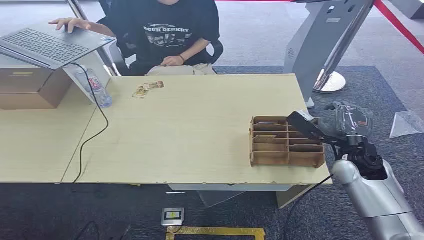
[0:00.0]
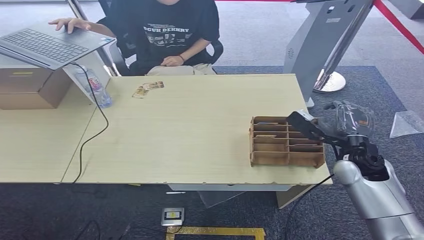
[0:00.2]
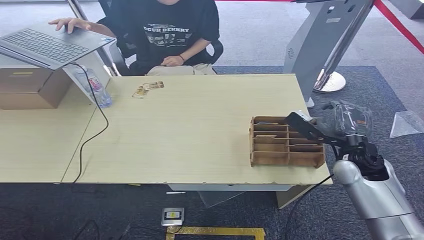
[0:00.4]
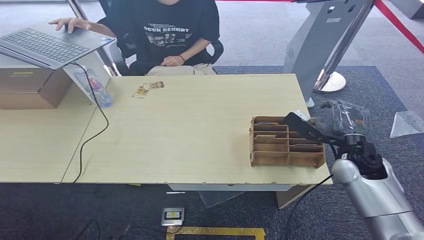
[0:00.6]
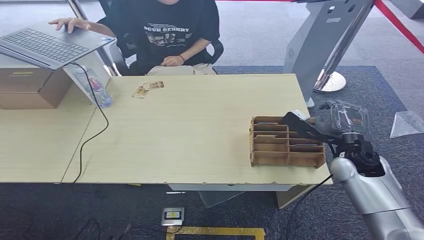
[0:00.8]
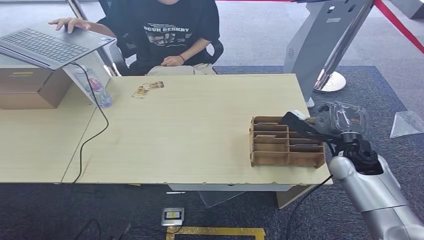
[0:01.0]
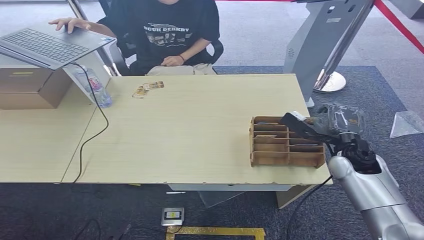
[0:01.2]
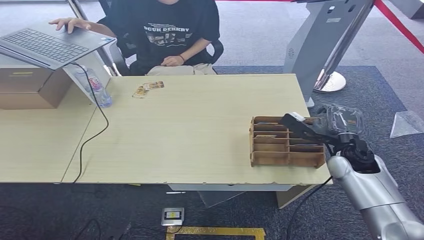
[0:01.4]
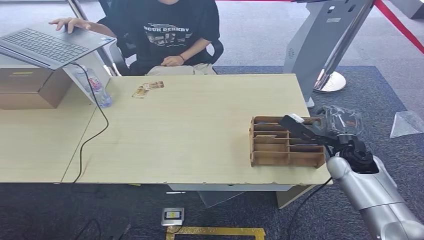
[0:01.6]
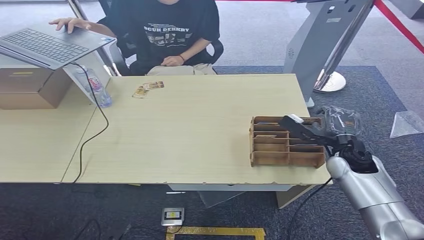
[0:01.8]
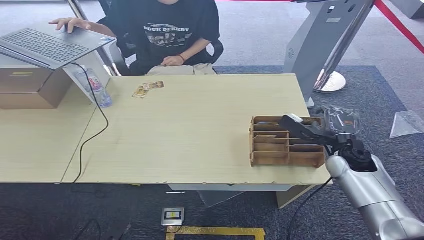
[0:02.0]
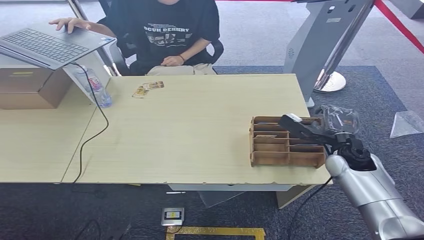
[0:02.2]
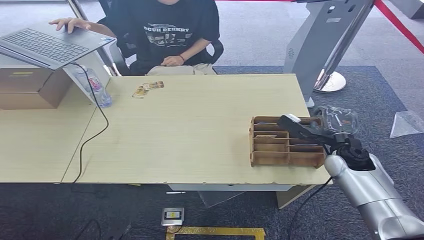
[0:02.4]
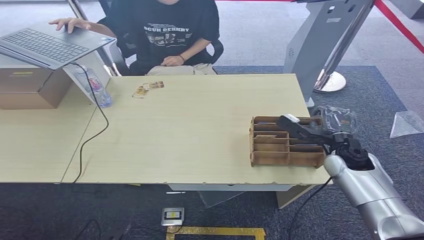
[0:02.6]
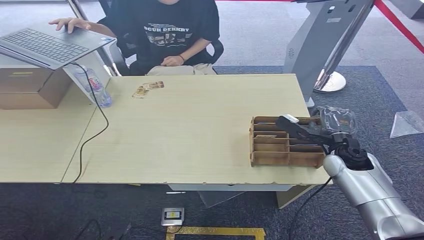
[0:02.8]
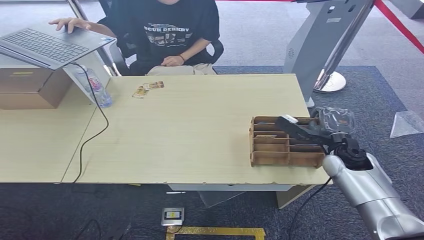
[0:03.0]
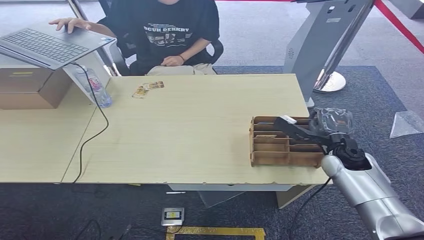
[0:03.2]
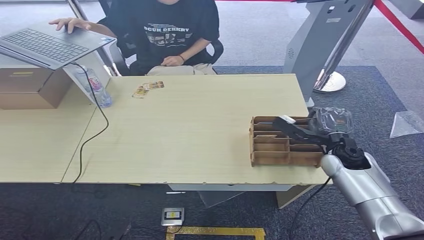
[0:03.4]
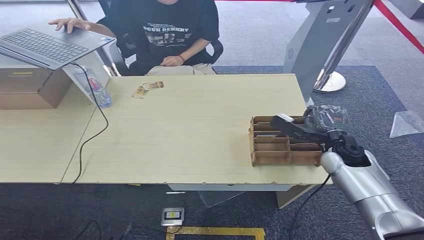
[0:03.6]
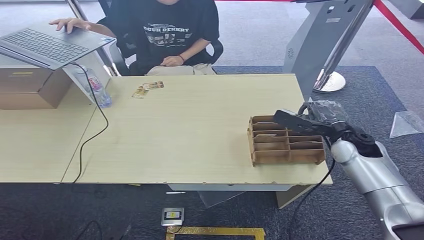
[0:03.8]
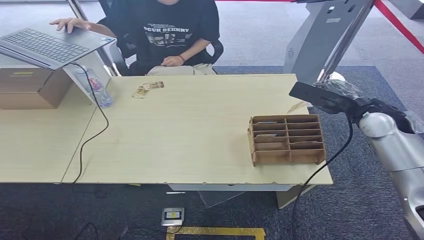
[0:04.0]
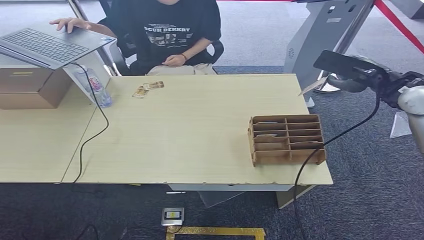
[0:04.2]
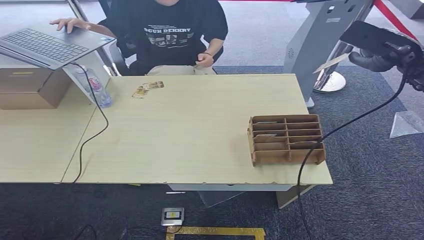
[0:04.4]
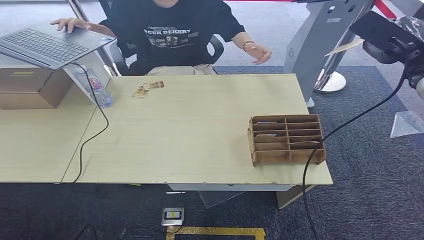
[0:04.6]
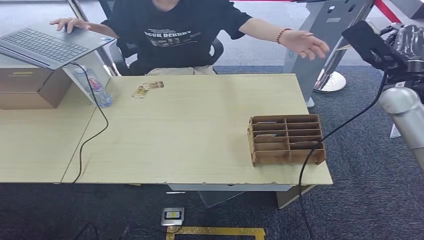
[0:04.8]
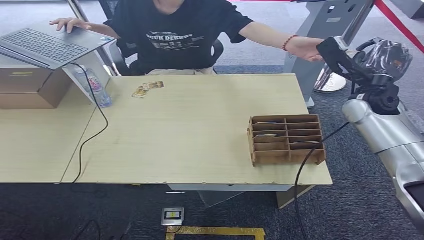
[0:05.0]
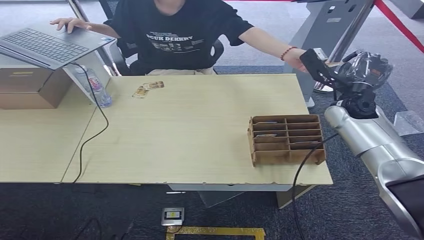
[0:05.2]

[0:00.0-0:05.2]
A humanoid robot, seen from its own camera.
Step, 0:00.0 to 0:03.8: Pick up the key card from the card box.
Step, 0:04.0 to 0:05.2: Hand the key card to the target.
0:01.8 to 0:03.4: The two hands keep their place.
0:03.4 to 0:05.2: The right hand moves upward and forward, some 15 cm.

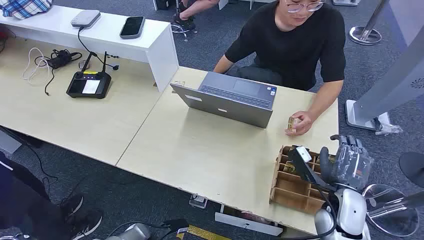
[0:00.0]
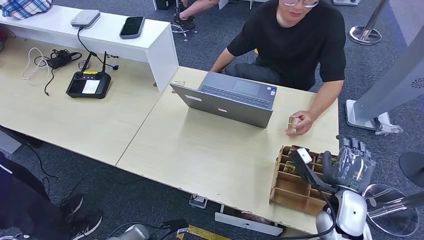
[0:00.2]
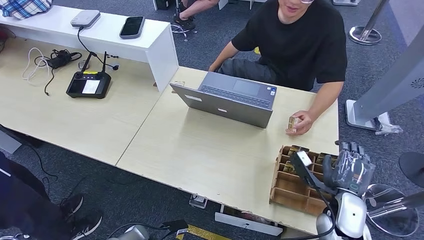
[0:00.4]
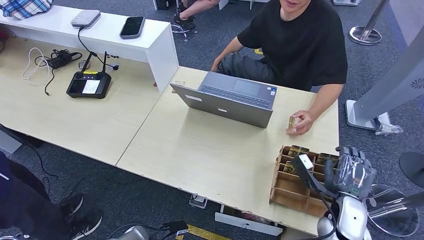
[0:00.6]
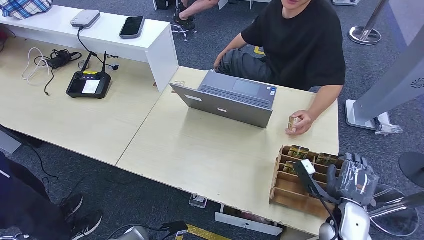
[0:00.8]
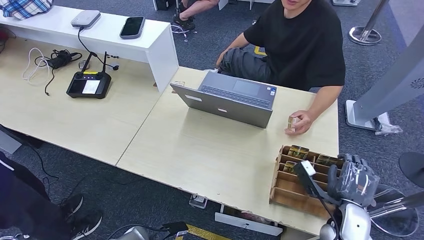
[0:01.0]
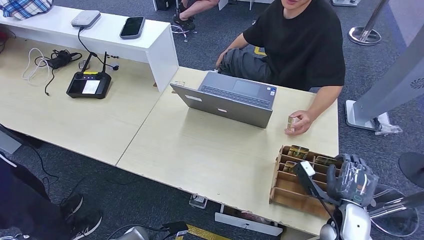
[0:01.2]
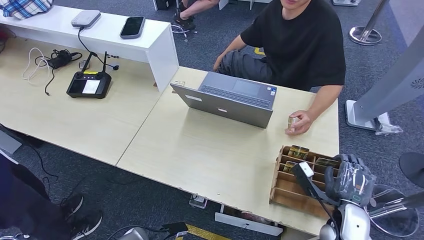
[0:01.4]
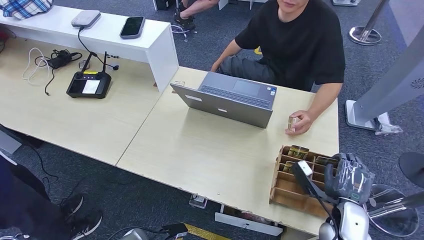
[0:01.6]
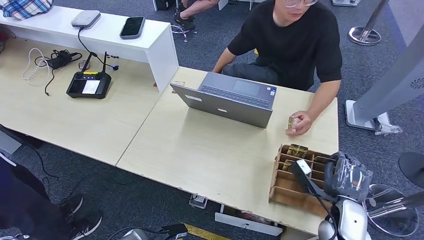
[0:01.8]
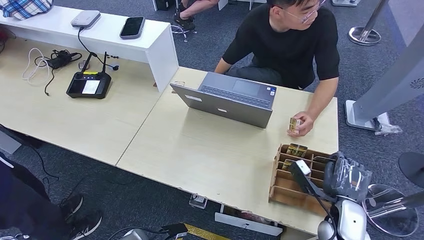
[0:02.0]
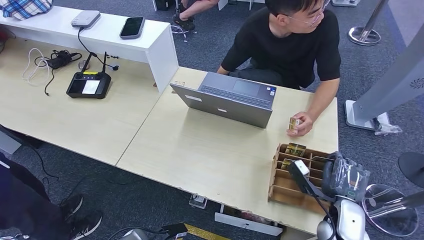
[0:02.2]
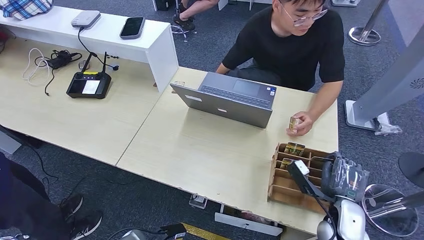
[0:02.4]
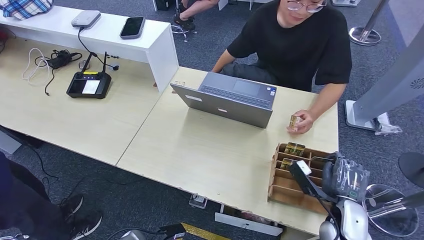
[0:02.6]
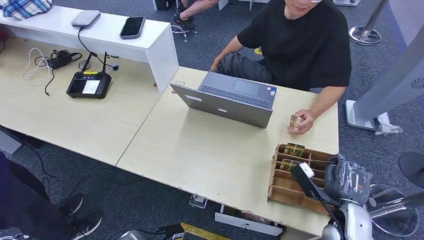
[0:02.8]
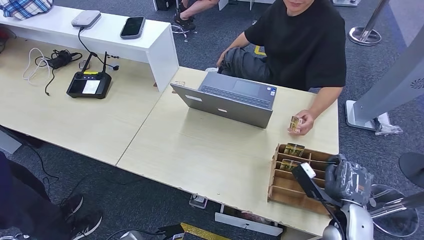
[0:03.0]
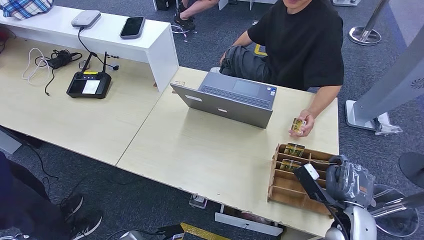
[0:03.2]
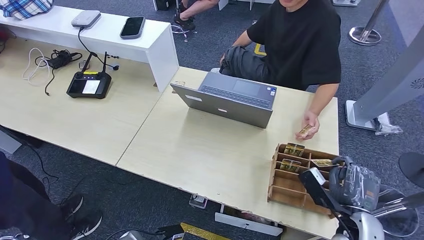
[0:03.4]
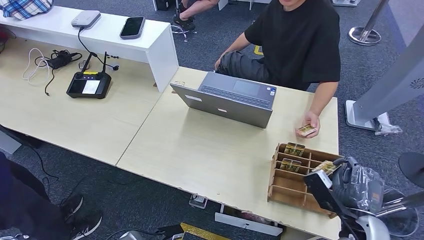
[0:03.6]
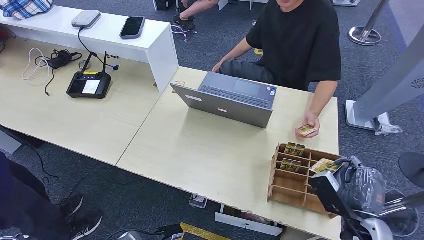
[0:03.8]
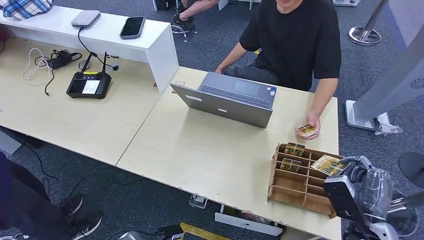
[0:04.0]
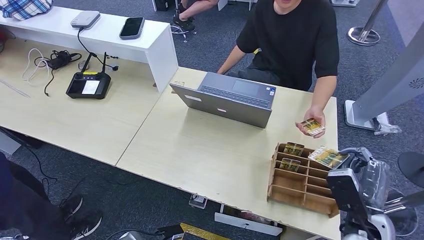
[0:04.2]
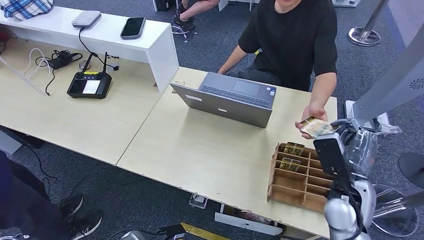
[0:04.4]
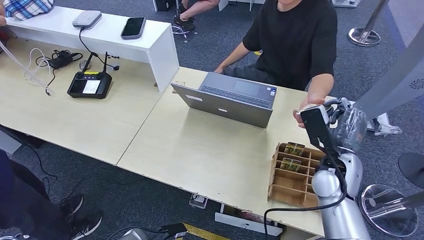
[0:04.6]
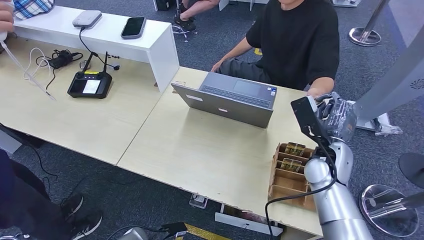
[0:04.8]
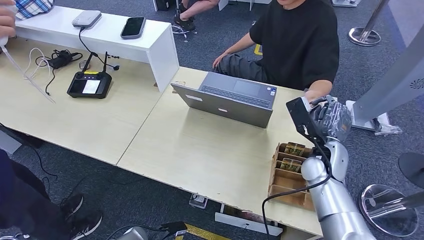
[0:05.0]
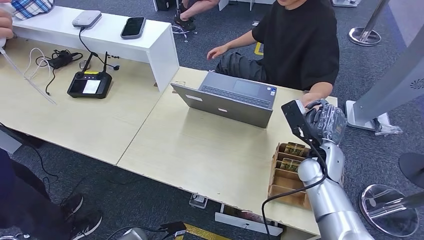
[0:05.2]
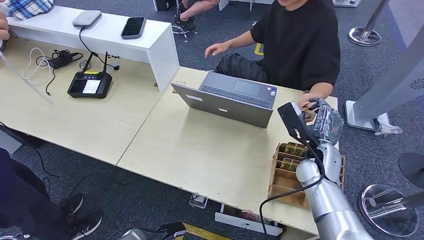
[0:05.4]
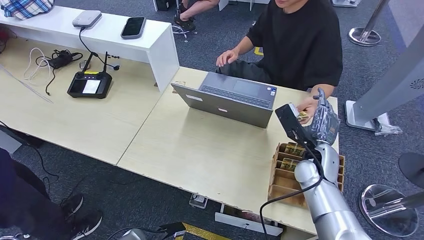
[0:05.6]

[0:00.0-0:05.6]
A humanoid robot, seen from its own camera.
Step, 0:00.0 to 0:03.0: Pick up the key card from the card box.
Step, 0:03.2 to 0:05.6: Hand the key card to the target.
0:01.4 to 0:02.8: The hands make only small movements.
0:02.8 to 0:04.2: The right hand goes roughly 5 cm upward.
0:04.2 to 0:05.6: The right hand travels forward and to the left by approximately 15 cm.
